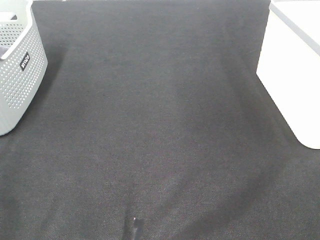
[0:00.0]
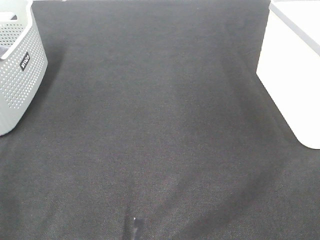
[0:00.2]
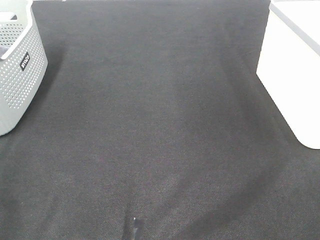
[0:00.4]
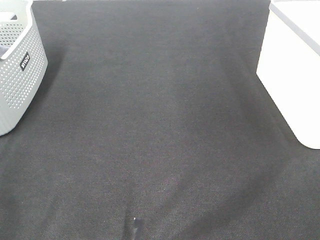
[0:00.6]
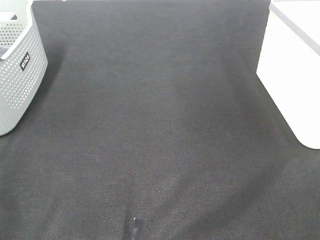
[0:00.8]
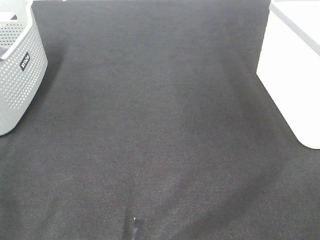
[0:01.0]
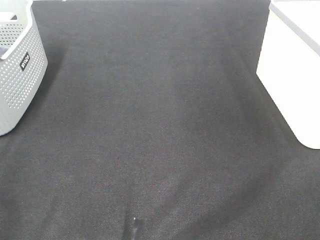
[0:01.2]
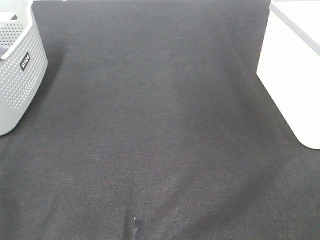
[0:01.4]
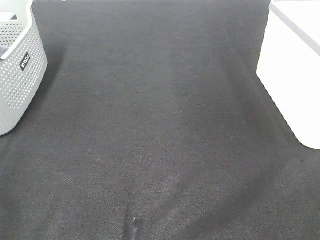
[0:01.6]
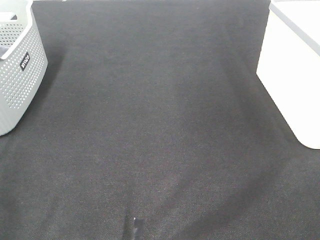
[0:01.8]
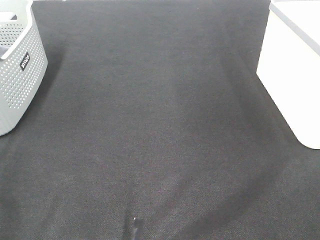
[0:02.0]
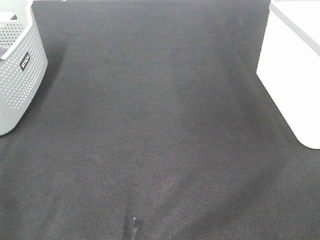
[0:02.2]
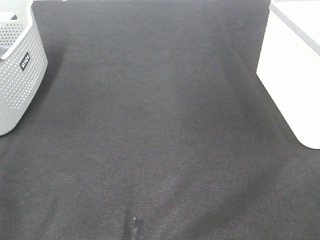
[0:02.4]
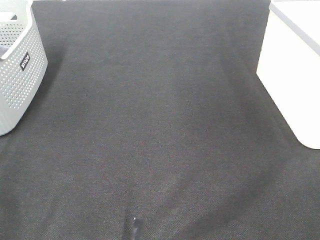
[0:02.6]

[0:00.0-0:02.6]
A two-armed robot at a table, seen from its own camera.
0:01.2 to 0:02.6: Both grippers stay about where they are.

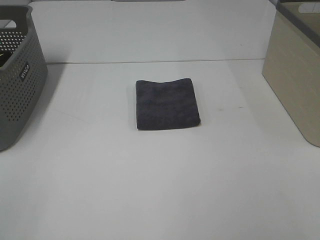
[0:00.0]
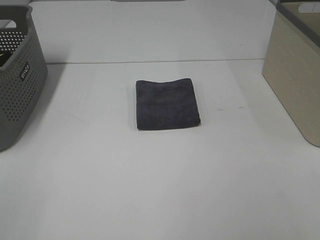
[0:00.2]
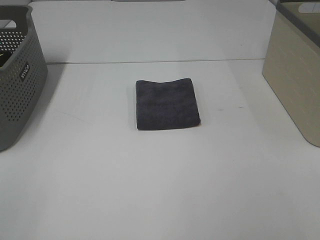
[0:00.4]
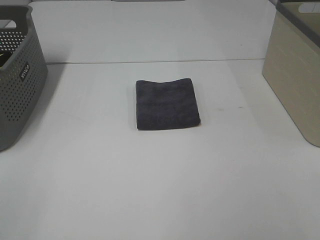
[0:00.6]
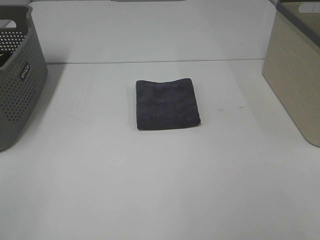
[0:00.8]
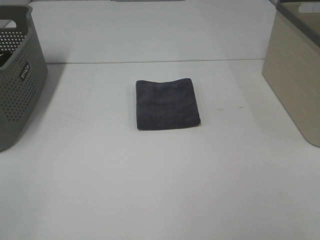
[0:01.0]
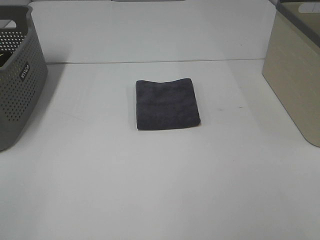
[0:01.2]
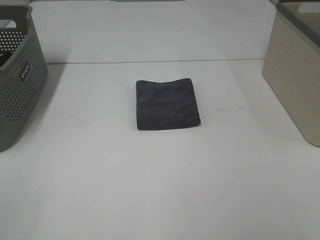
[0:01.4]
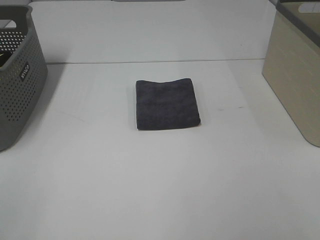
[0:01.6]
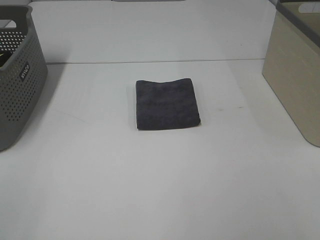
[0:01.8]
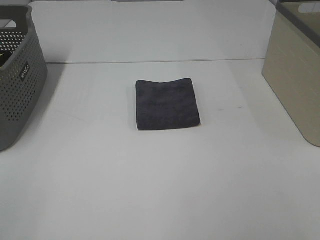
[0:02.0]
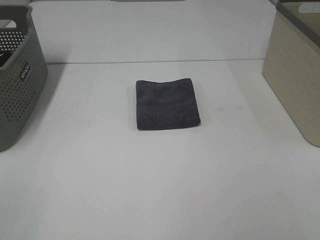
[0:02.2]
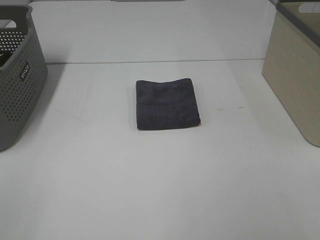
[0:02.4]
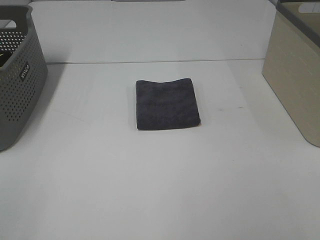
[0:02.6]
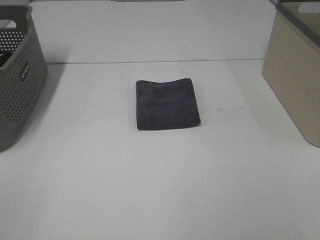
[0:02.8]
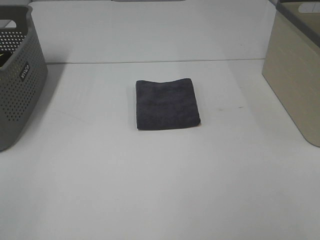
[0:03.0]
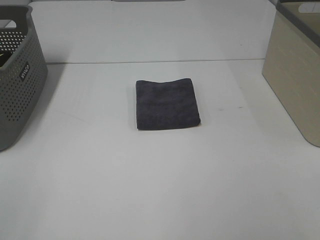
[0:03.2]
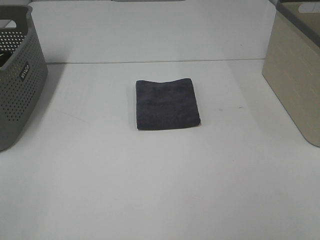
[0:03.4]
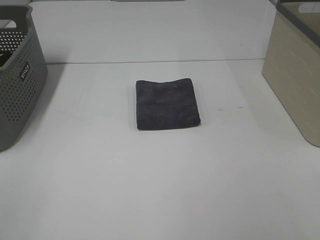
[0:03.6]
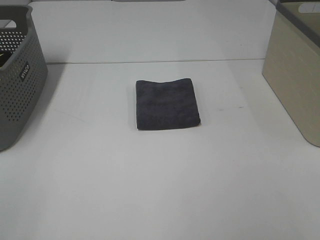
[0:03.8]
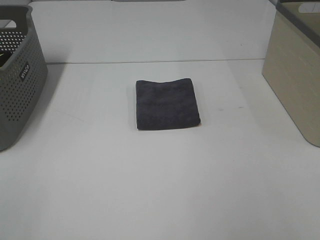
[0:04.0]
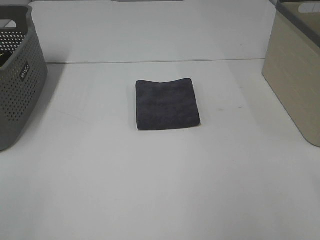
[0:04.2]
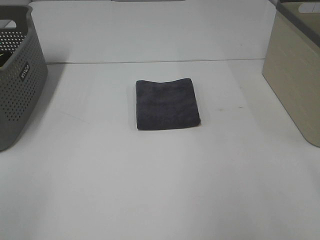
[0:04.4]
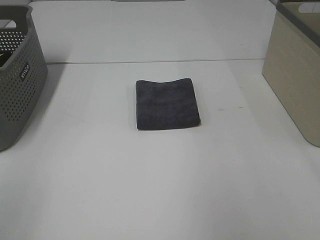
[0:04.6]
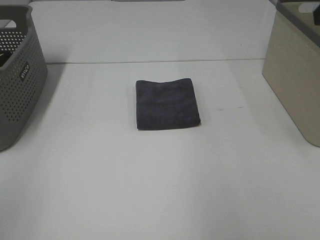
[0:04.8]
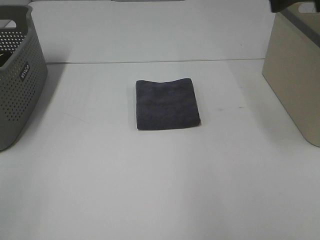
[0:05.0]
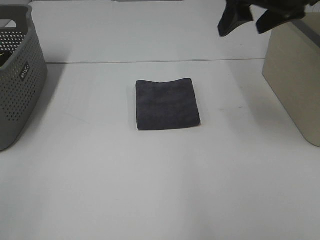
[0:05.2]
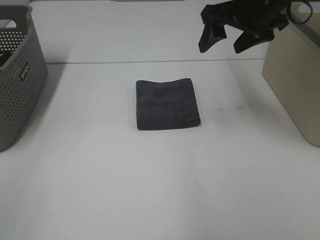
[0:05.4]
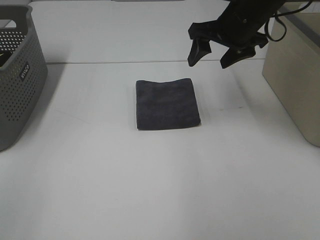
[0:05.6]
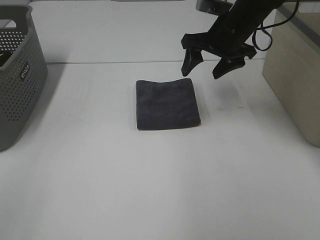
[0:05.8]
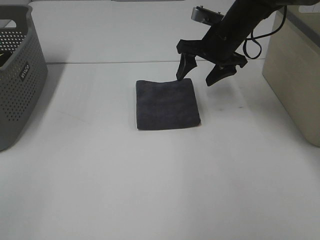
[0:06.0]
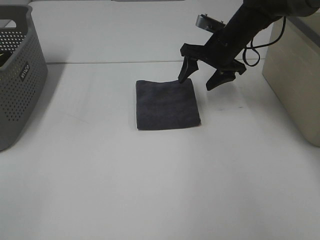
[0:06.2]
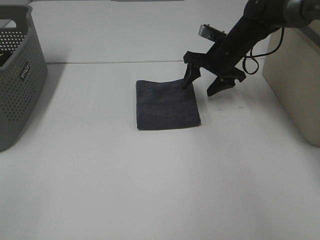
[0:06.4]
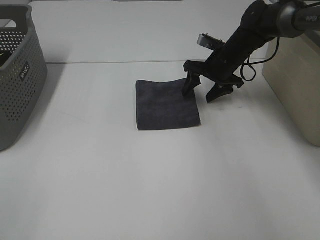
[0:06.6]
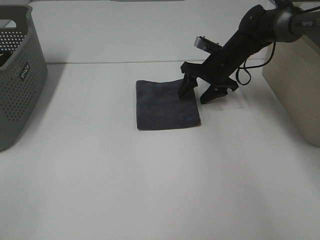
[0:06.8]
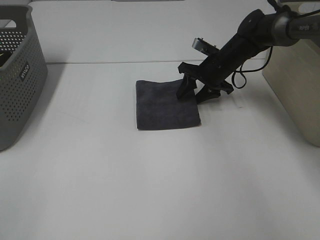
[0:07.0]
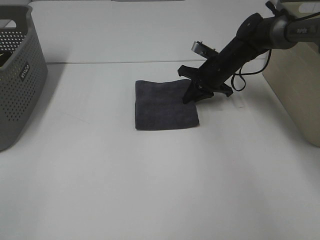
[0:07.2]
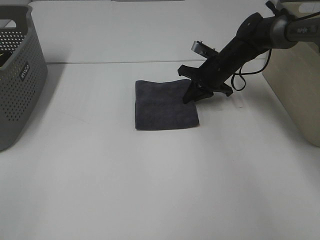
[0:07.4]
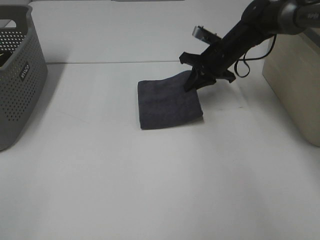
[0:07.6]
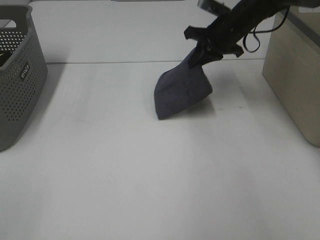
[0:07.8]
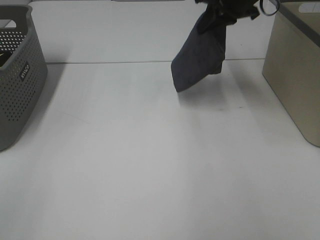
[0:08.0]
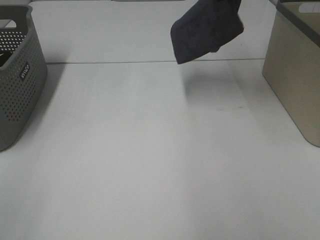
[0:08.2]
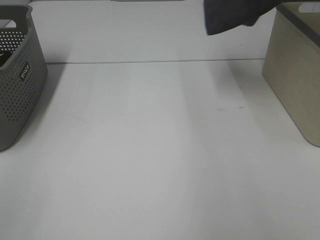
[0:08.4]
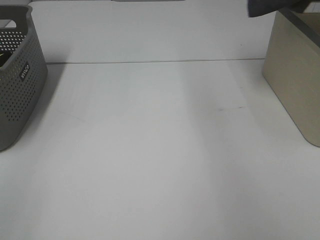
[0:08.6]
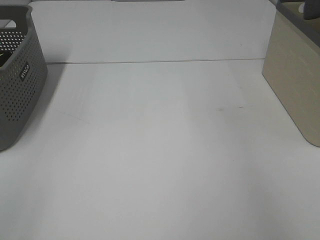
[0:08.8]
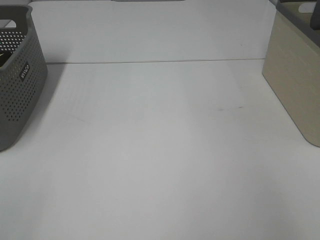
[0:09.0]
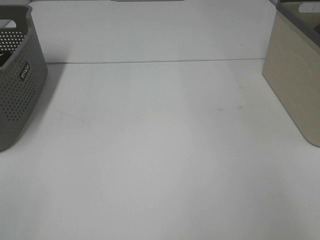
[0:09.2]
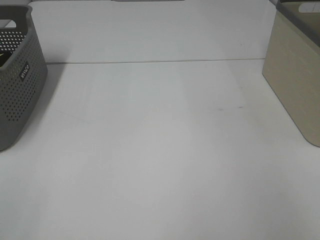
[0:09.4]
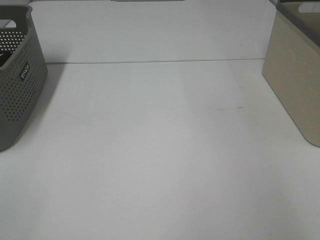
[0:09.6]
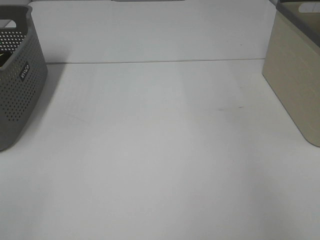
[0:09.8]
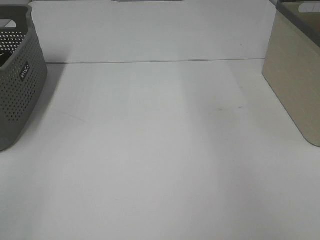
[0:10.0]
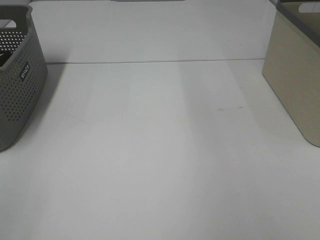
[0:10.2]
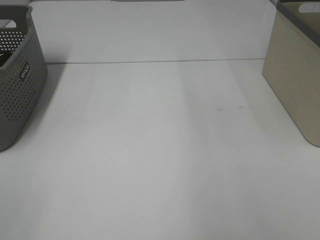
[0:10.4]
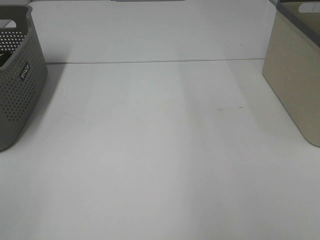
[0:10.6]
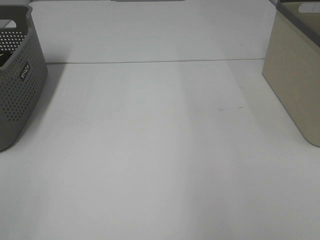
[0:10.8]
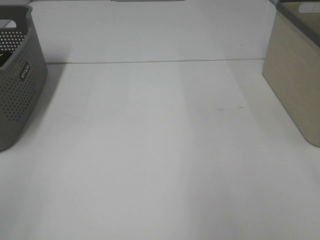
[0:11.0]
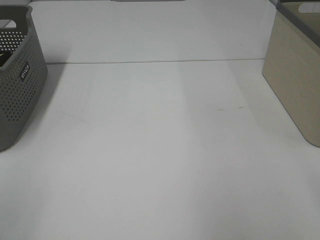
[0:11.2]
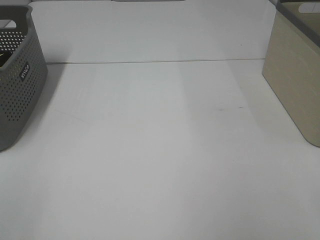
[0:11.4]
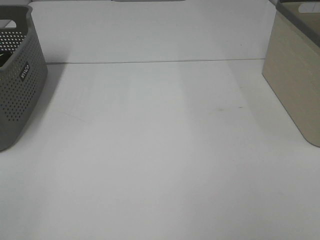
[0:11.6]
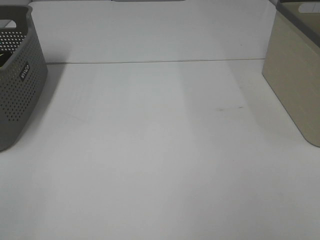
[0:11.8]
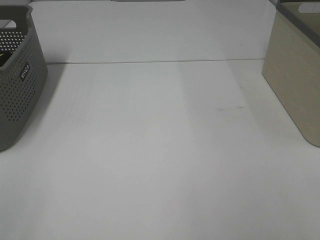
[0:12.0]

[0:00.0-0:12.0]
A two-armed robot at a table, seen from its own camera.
Step, 0:00.0 to 0:07.2: Right hand: grab the folded grey towel.
Step, 0:07.4 to 0:09.6: Right hand: place the grey towel in right basket.
0:00.0 to 0:03.0: The two grippers keep their place.
0:04.4 to 0:06.0: The right gripper goes roughly 35 cm forward, downward and to the left.
0:06.0 to 0:07.6: The right gripper shifts roughly 5 cm downward, and closes its fingers.
0:07.6 to 0:09.0: The right gripper shifts approximately 40 cm upward and to the right.

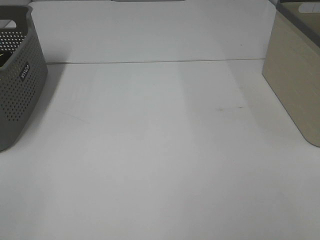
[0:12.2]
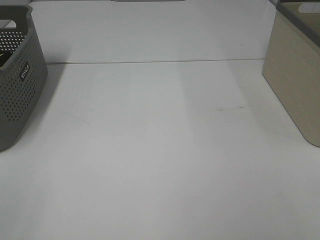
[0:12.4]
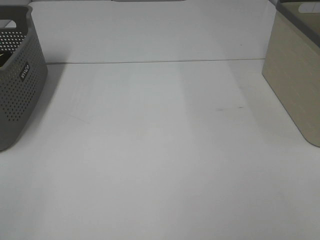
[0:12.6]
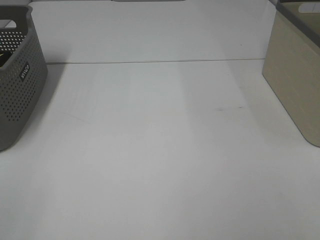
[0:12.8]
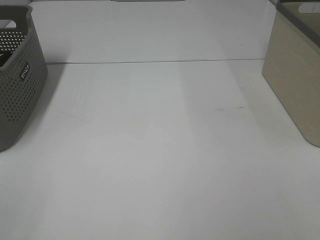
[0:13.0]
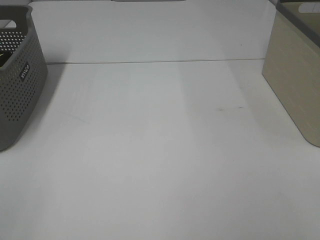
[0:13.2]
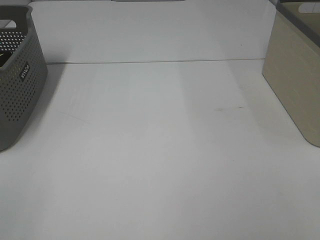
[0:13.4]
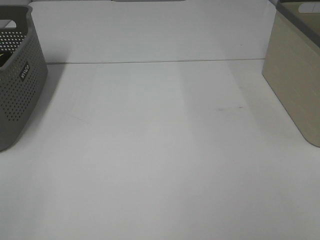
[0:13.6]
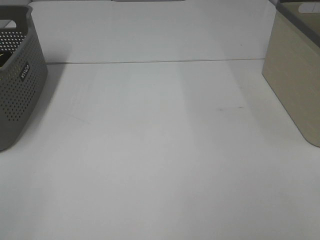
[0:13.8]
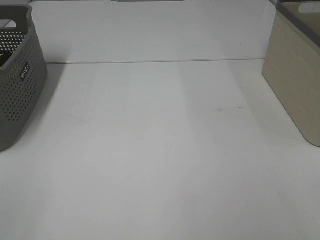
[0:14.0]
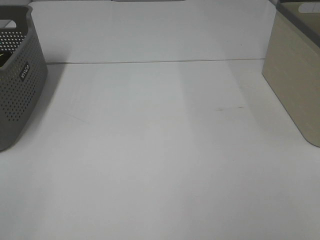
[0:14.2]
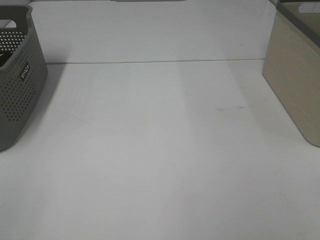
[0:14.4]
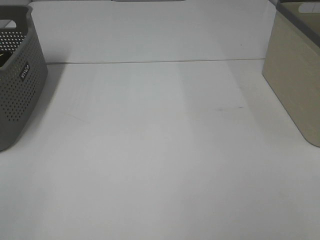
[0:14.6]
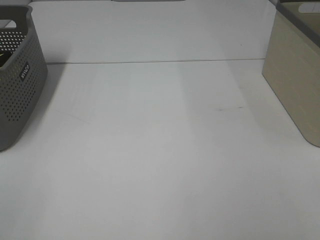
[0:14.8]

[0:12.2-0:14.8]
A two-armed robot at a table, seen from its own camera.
0:12.2 to 0:14.8: Both grippers stay about where they are.

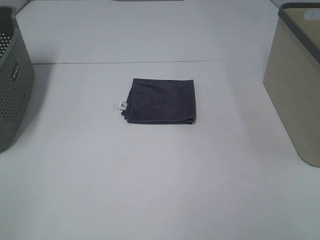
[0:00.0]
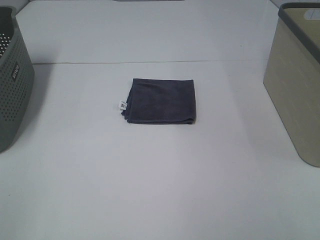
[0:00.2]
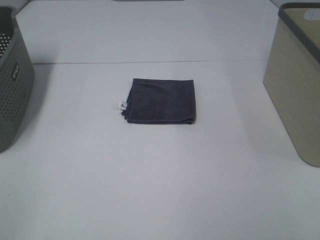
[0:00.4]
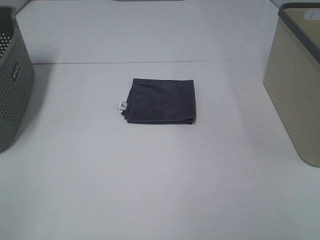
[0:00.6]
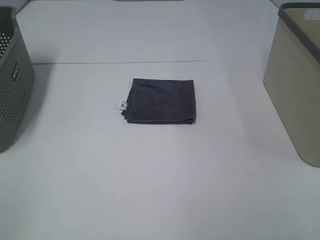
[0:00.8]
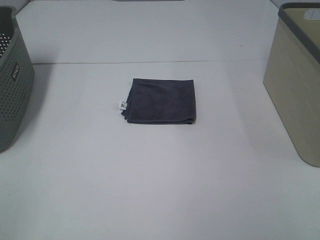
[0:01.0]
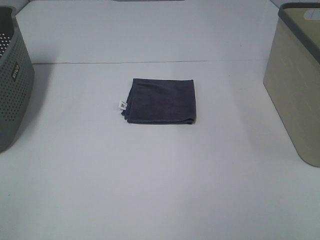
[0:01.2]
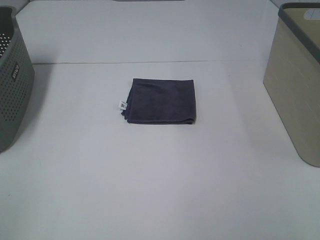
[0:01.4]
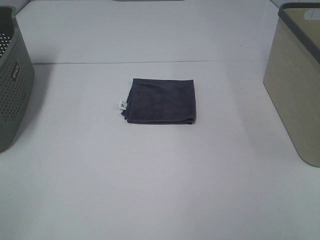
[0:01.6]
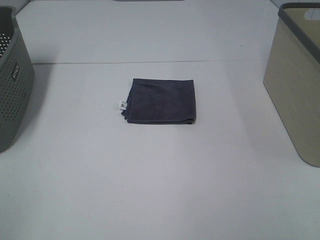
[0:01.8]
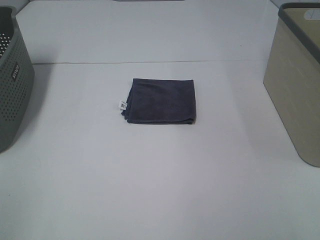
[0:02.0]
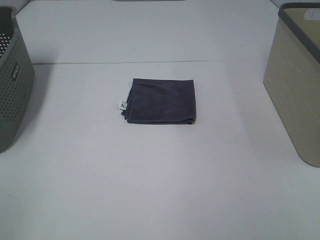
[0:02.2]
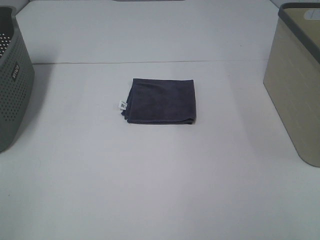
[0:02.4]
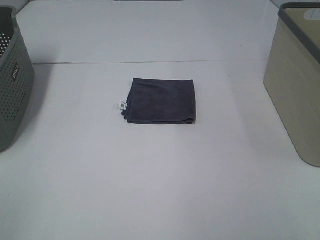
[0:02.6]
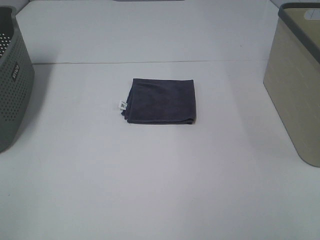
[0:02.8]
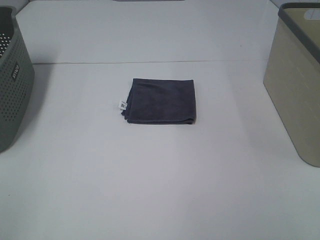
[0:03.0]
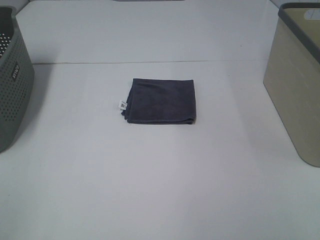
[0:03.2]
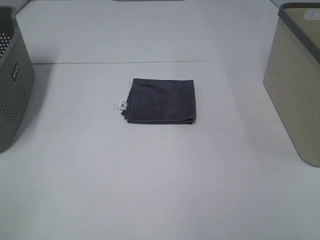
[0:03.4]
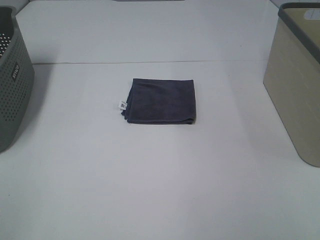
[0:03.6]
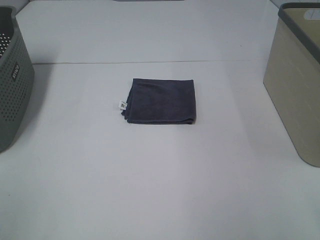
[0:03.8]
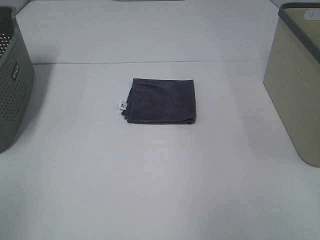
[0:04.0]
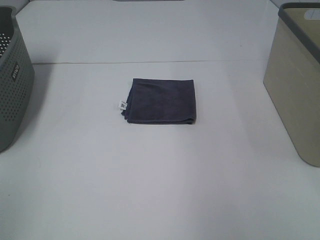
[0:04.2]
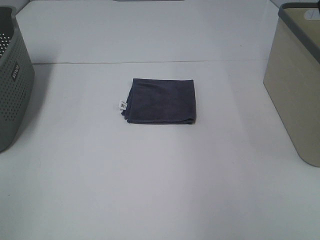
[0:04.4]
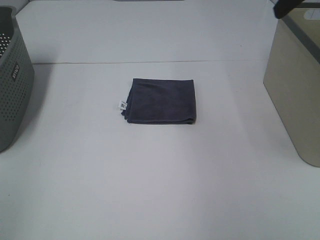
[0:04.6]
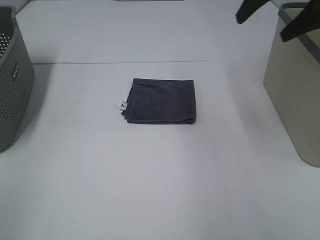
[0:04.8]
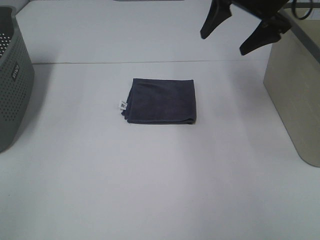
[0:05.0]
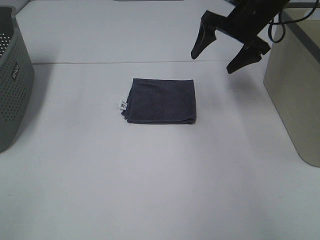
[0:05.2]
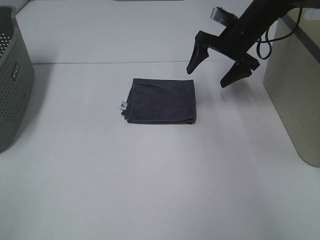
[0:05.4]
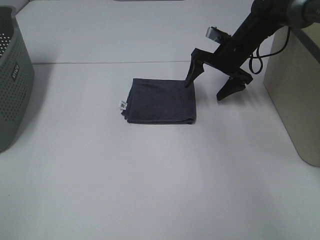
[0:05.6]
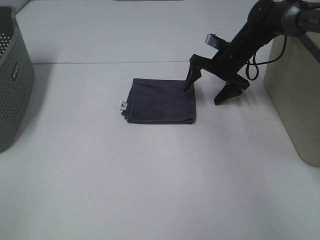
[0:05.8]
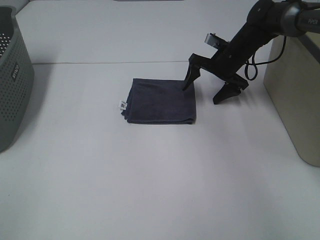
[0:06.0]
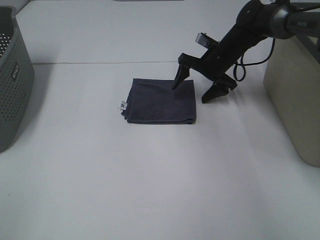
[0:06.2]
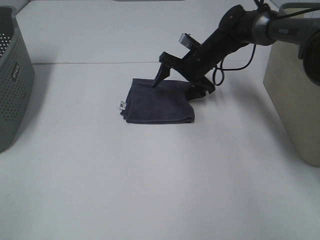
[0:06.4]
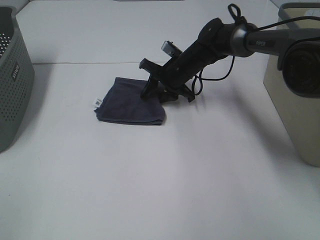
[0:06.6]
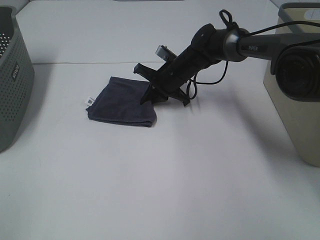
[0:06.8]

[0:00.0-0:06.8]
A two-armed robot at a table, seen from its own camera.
Step, 0:00.0 to 0:06.8: Right hand: grab the folded grey towel.
0:00.0 to 0:02.8: The two grippers keep their place.
0:04.0 to 0:05.4: The right gripper goes roughly 40 cm forward and downward.
0:05.4 to 0:06.8: The right gripper moves to the left and downward, some 15 cm, and closes up.
